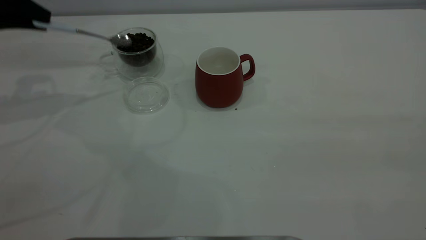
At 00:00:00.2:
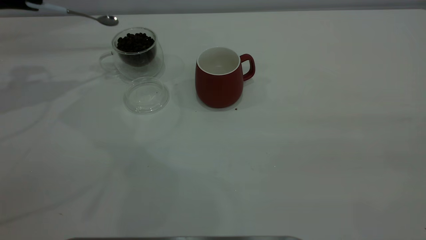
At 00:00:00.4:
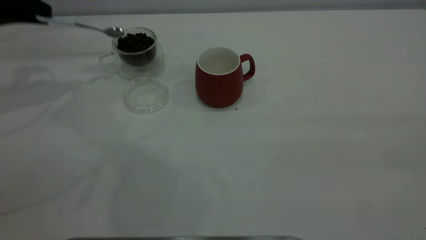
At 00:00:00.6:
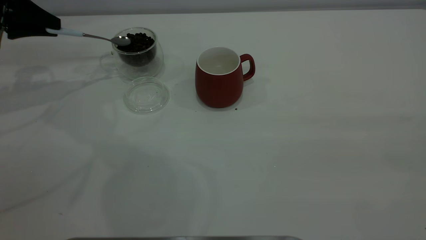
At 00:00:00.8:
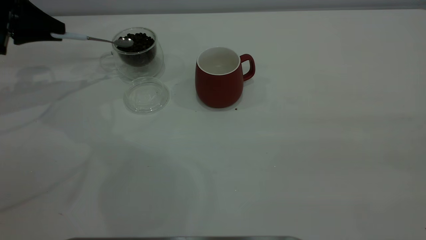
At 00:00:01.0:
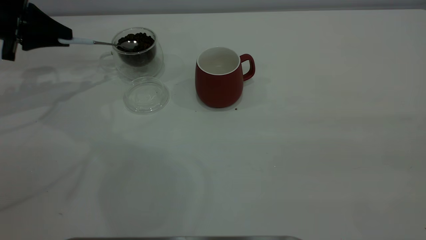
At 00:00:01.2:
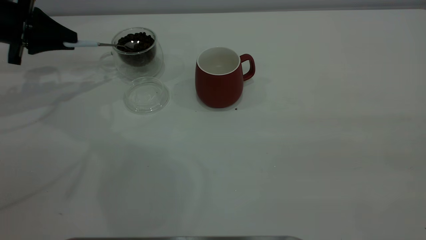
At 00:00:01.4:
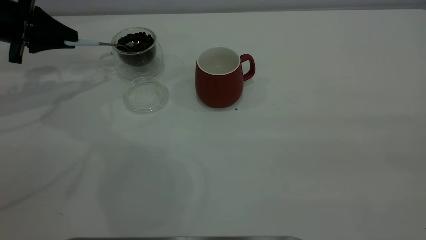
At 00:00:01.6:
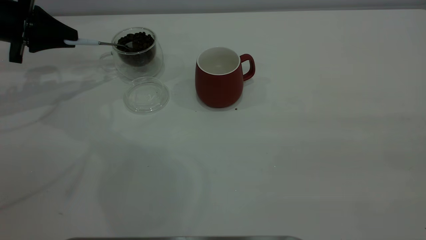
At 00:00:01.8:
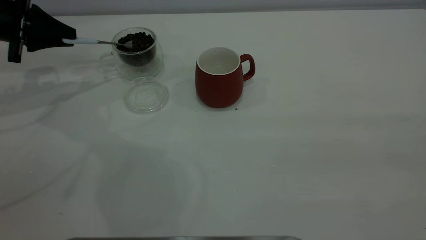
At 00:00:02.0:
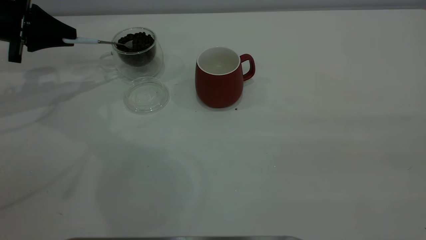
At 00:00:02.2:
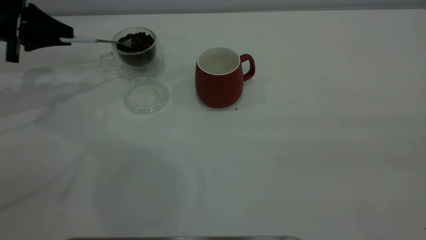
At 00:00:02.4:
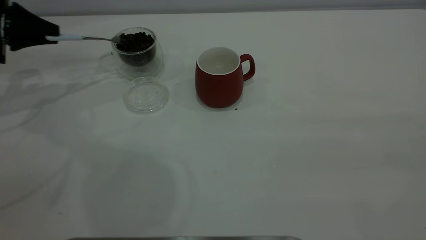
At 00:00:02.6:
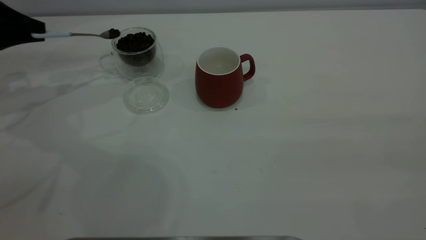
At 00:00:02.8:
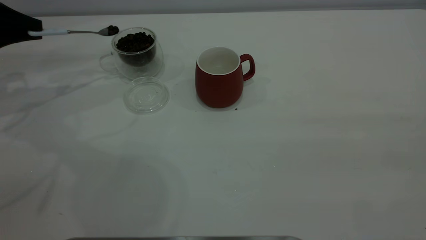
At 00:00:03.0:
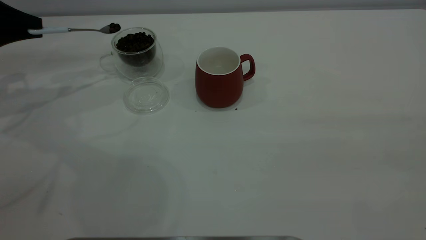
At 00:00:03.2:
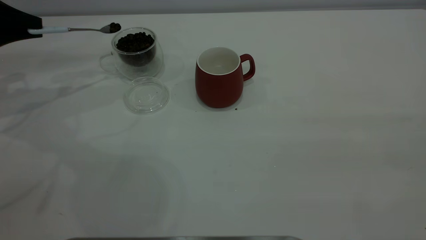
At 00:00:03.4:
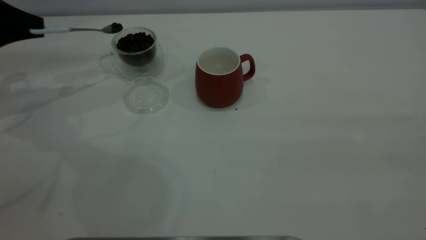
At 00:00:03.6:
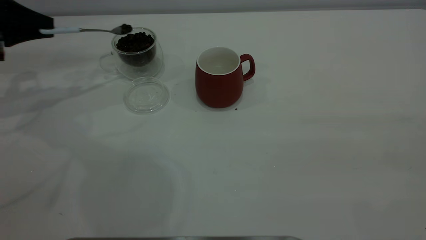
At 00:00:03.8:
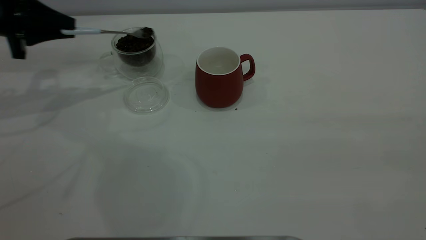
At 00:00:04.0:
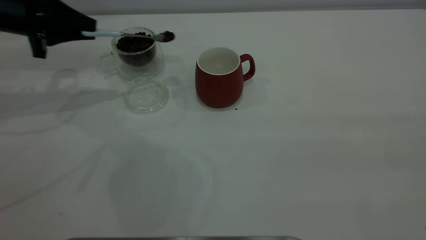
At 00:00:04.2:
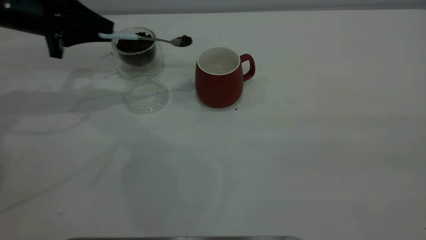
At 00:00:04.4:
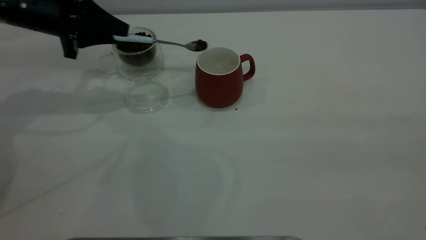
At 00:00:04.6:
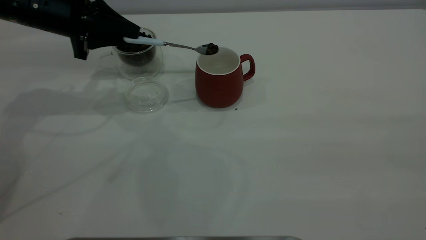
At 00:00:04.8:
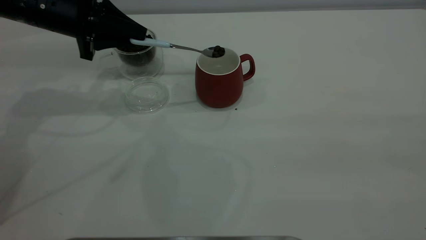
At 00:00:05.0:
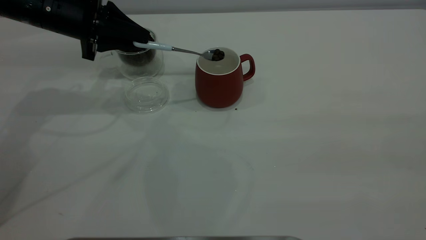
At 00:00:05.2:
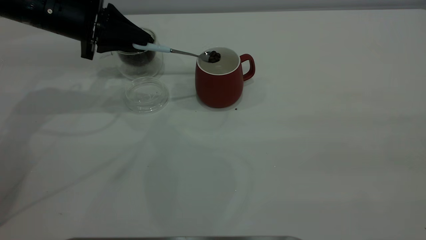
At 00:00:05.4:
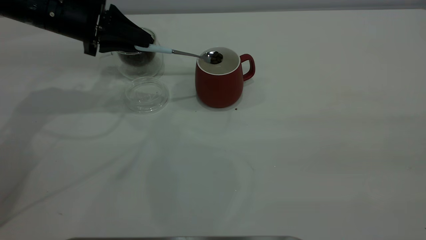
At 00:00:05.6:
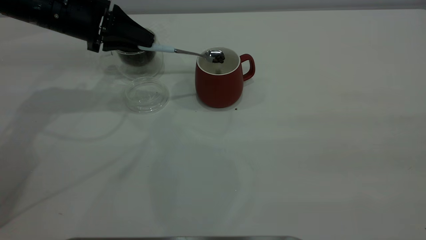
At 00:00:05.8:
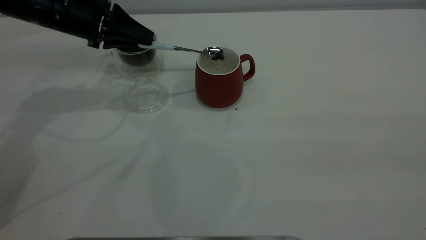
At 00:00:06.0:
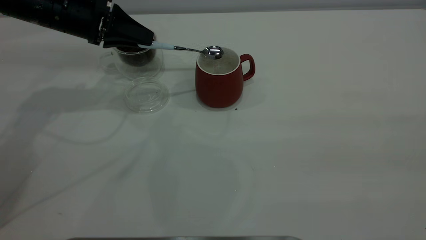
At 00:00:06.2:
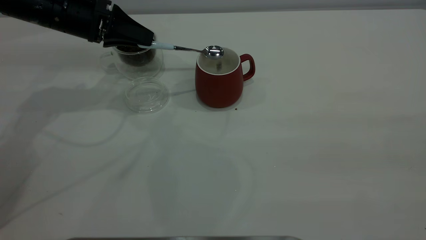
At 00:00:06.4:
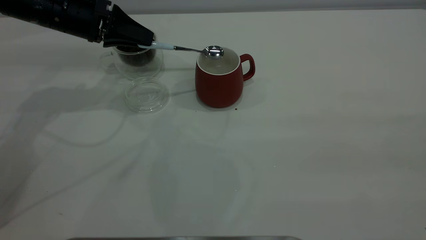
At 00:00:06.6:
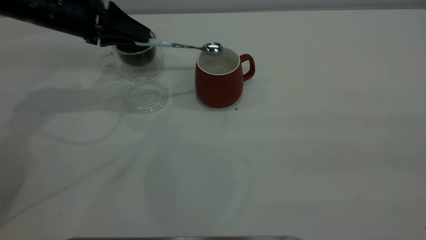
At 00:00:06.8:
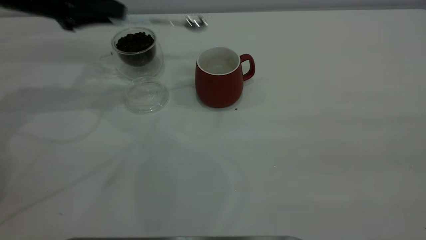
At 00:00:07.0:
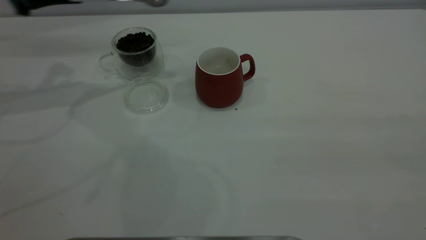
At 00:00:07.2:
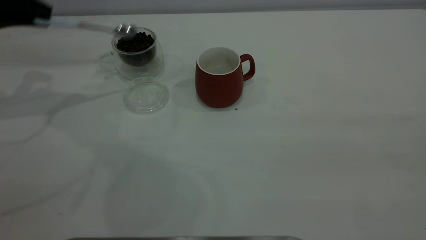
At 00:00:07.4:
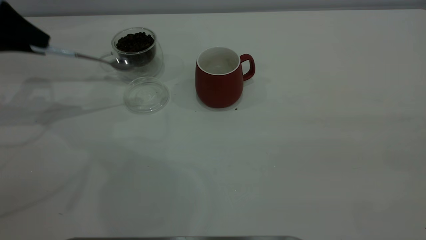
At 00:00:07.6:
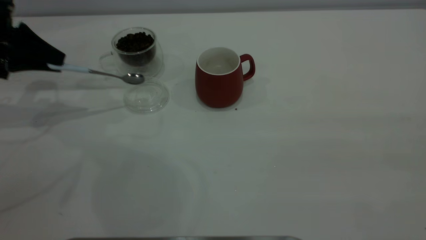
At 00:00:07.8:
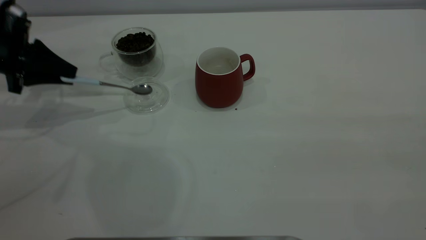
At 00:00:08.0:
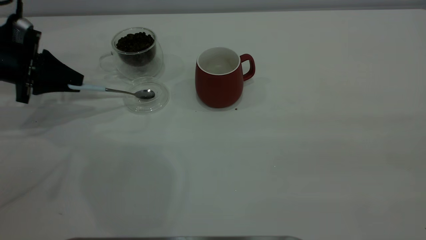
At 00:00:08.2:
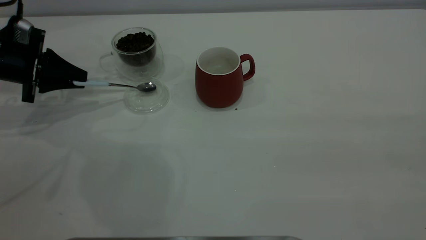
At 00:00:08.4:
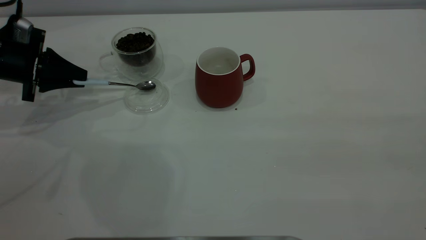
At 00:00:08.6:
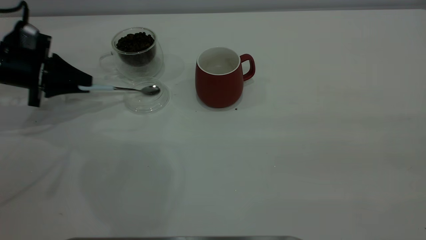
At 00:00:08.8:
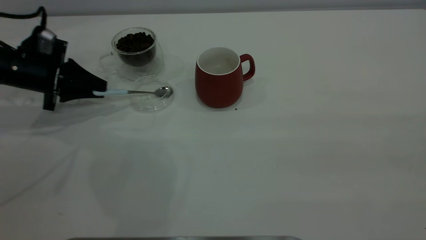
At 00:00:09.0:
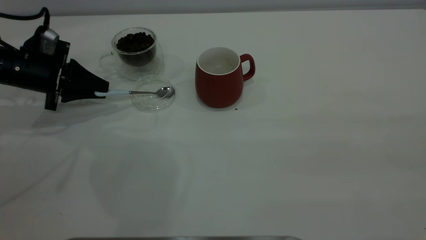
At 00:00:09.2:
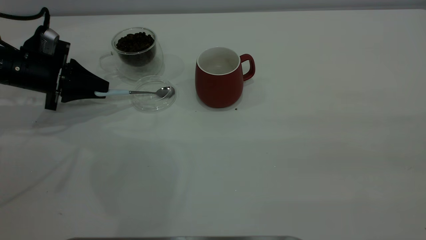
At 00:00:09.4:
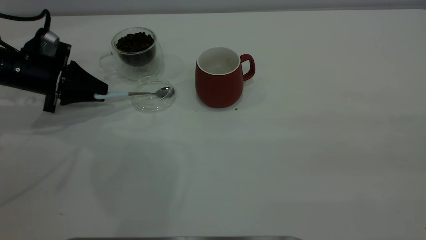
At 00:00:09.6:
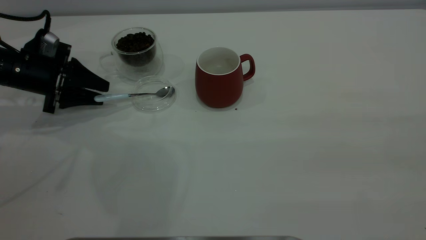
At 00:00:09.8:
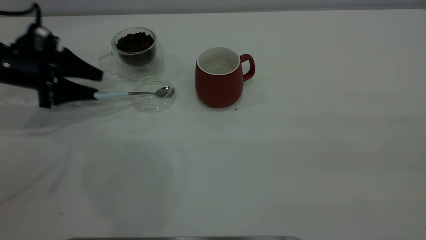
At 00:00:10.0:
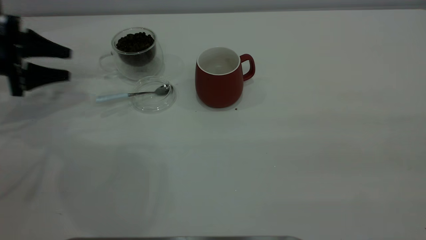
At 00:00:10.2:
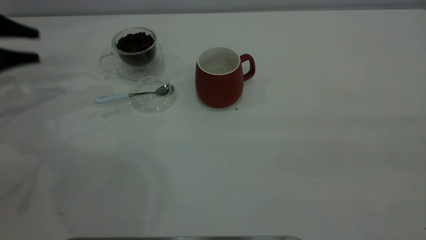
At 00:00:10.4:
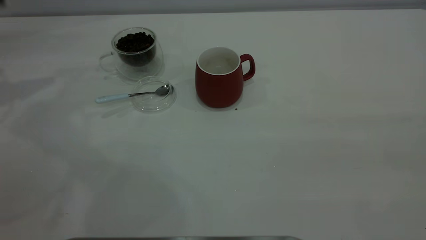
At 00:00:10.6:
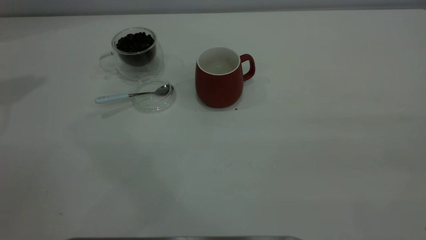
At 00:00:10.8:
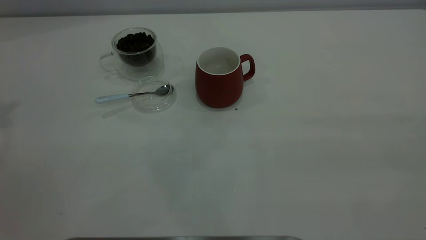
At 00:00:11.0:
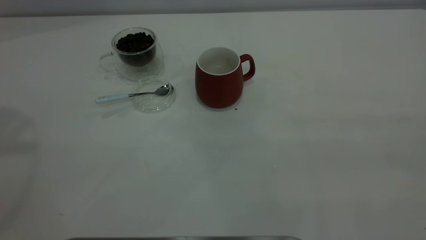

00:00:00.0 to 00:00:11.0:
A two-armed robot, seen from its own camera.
Task of the whole recording: the right gripper place the red cup in the center of the table, the left gripper take the blue spoon from the cup lid and scoop out the coffee beans from the coffee cup and put them into the red cup, the left gripper put the spoon back into the cup lid.
Step, 00:00:00.0 to 00:00:06.6: Scoop a spoonful of beans into the cup.
Step, 00:00:06.8 to 00:00:10.0: Place the spoon back in its original place.
00:00:00.0 to 00:00:01.6: The left gripper moves downward, about 5 cm.
00:00:01.6 to 00:00:03.2: The left gripper changes place by roughly 5 cm.
00:00:03.2 to 00:00:04.8: The left gripper heads to the right, covering about 15 cm.
00:00:06.2 to 00:00:07.8: The left gripper shifts roughly 10 cm to the left.
00:00:07.8 to 00:00:09.4: The left gripper shifts by some 5 cm.
00:00:09.4 to 00:00:11.0: The left gripper is displaced upward by some 40 cm, and opens, then closes once more.
